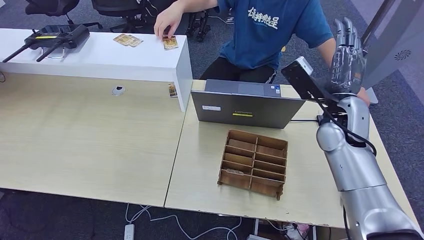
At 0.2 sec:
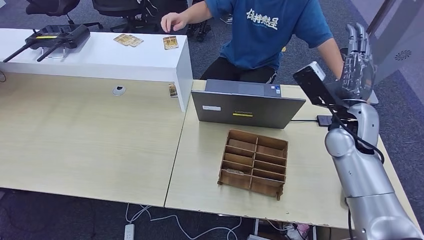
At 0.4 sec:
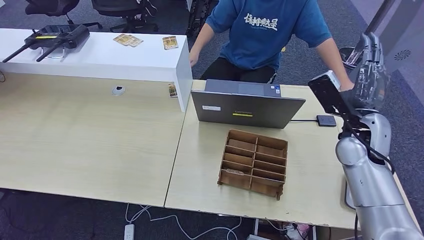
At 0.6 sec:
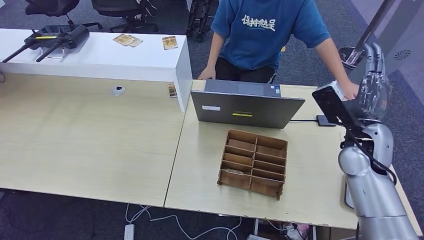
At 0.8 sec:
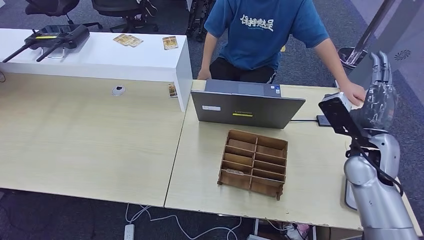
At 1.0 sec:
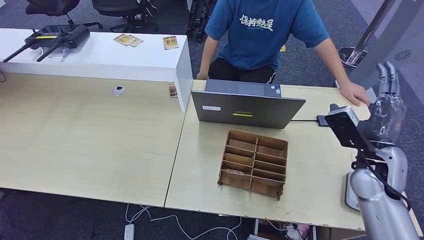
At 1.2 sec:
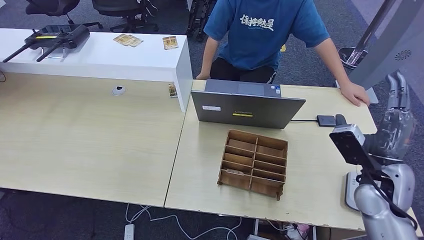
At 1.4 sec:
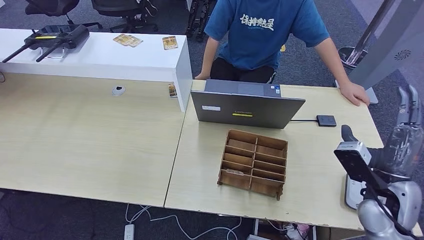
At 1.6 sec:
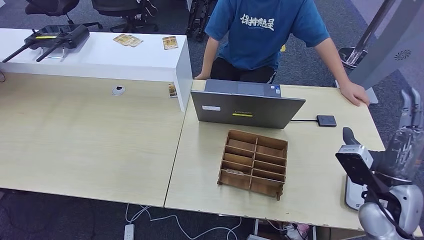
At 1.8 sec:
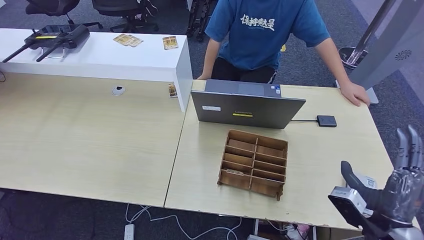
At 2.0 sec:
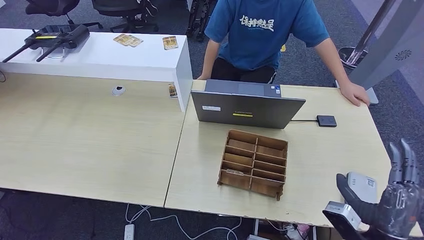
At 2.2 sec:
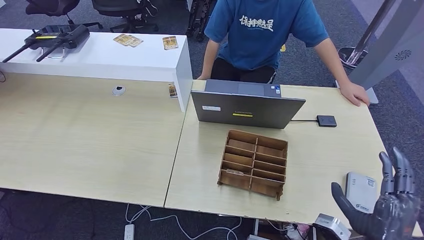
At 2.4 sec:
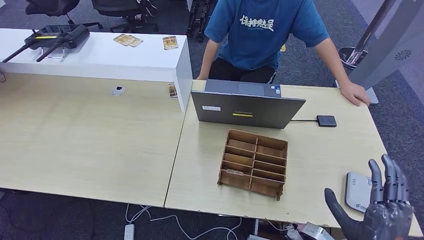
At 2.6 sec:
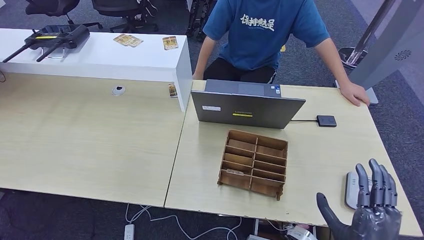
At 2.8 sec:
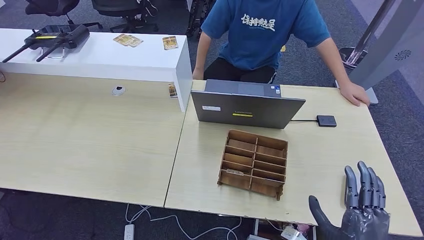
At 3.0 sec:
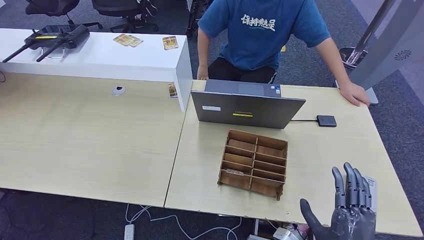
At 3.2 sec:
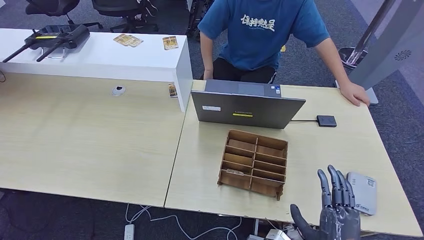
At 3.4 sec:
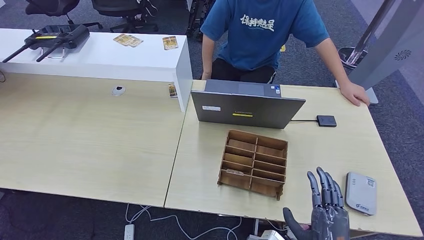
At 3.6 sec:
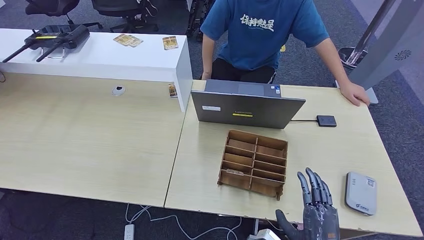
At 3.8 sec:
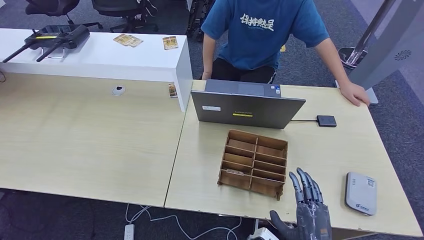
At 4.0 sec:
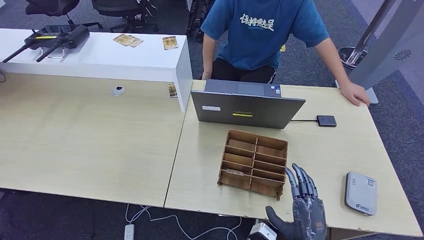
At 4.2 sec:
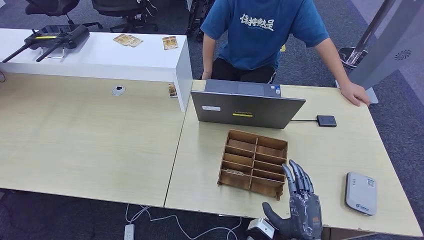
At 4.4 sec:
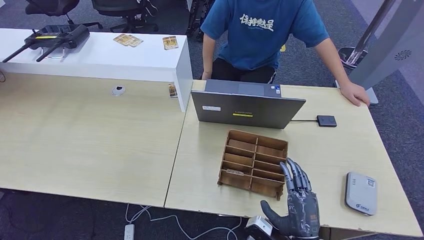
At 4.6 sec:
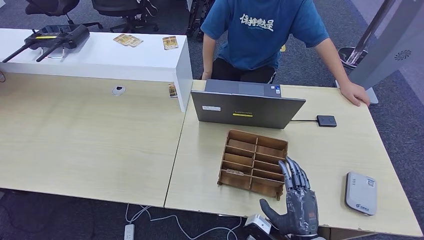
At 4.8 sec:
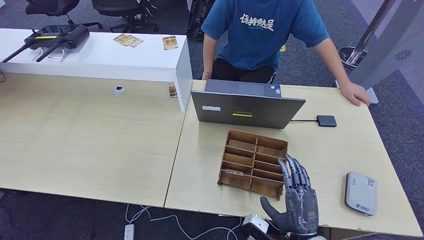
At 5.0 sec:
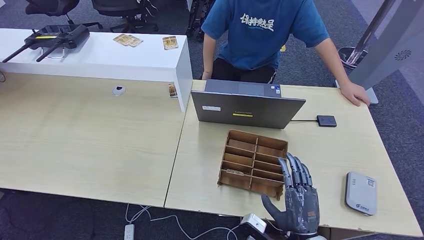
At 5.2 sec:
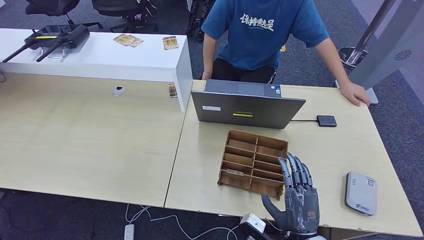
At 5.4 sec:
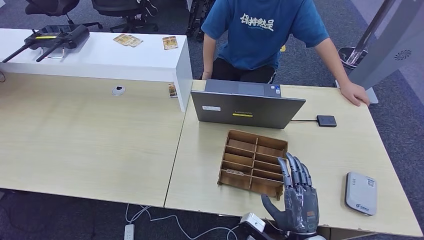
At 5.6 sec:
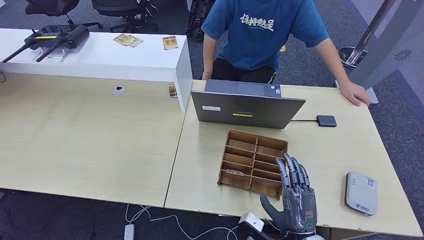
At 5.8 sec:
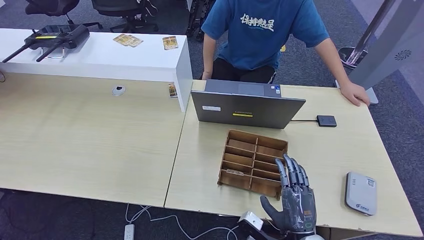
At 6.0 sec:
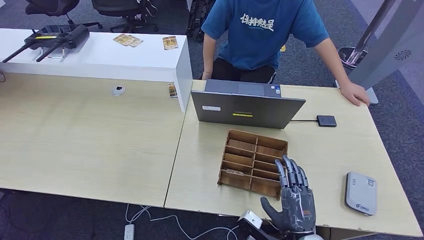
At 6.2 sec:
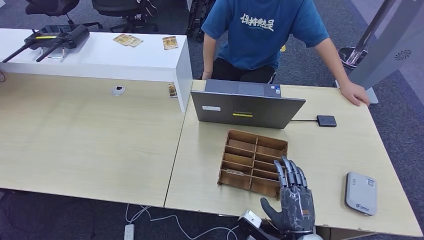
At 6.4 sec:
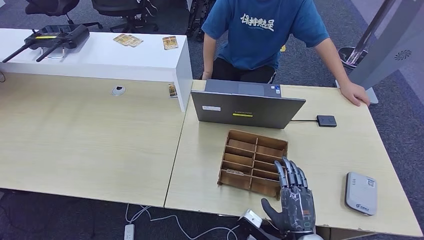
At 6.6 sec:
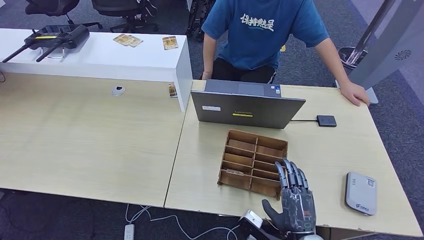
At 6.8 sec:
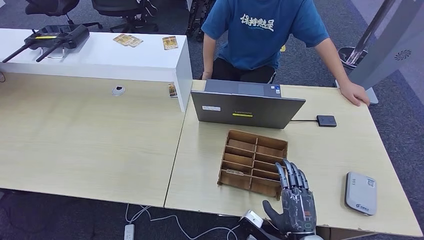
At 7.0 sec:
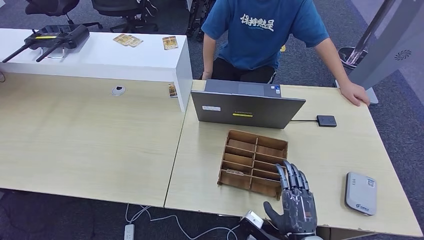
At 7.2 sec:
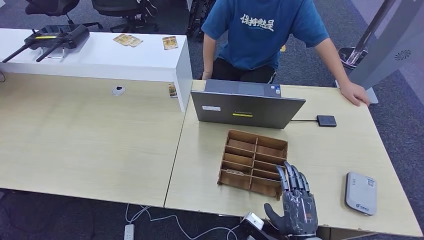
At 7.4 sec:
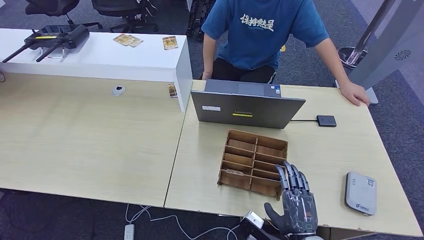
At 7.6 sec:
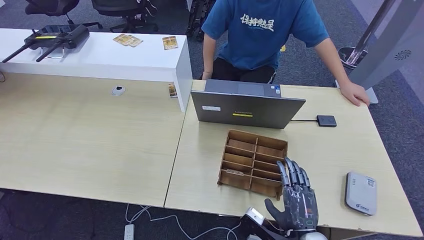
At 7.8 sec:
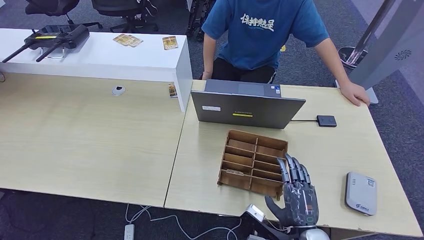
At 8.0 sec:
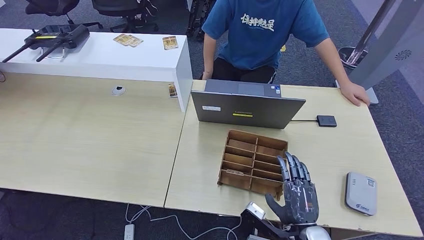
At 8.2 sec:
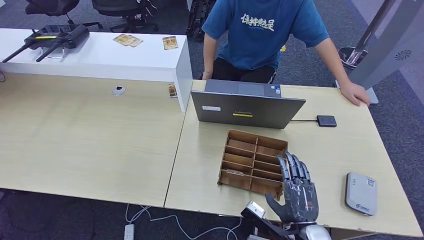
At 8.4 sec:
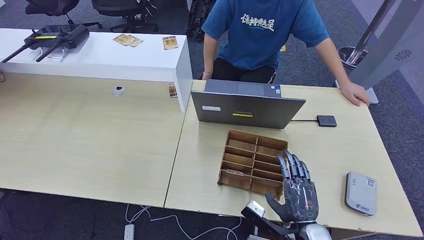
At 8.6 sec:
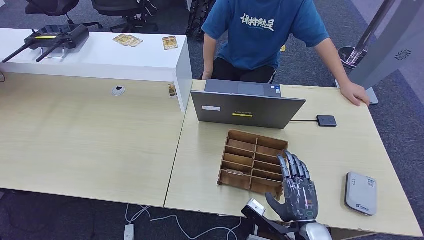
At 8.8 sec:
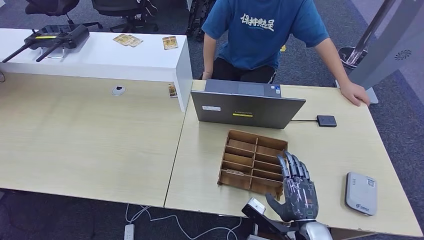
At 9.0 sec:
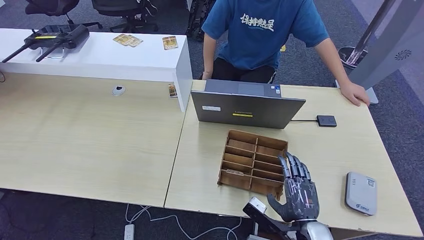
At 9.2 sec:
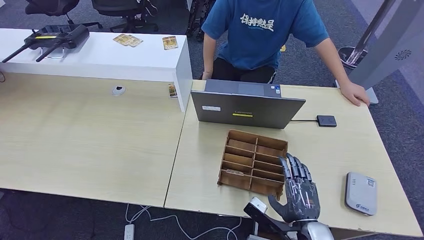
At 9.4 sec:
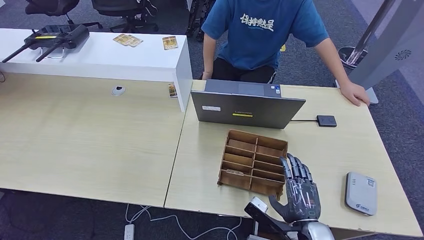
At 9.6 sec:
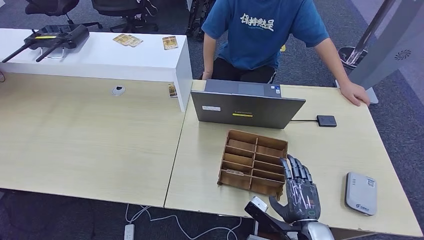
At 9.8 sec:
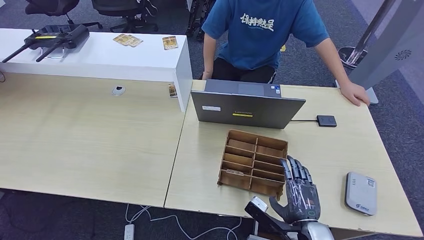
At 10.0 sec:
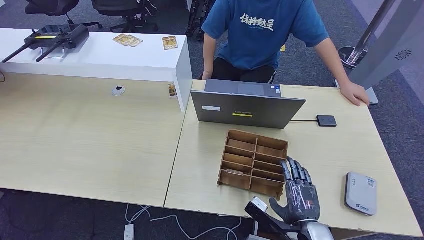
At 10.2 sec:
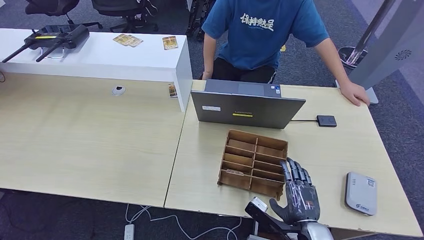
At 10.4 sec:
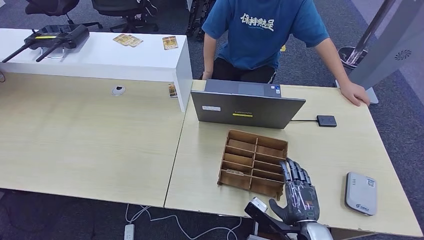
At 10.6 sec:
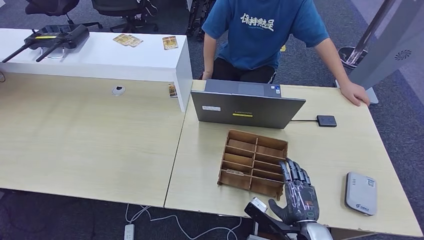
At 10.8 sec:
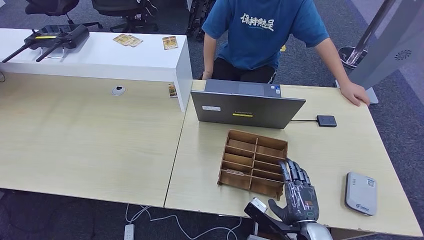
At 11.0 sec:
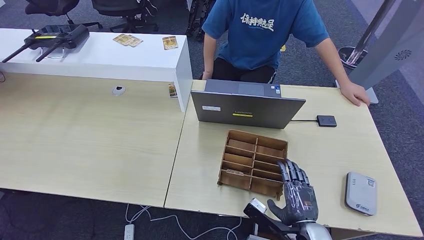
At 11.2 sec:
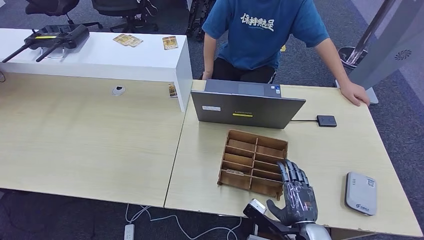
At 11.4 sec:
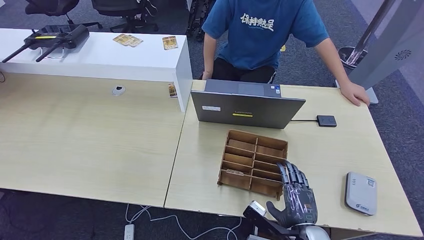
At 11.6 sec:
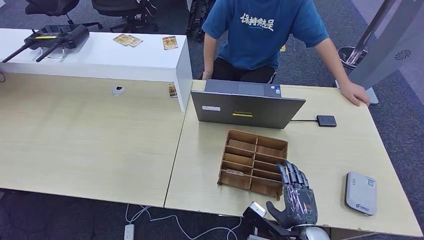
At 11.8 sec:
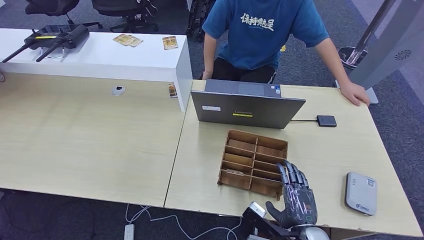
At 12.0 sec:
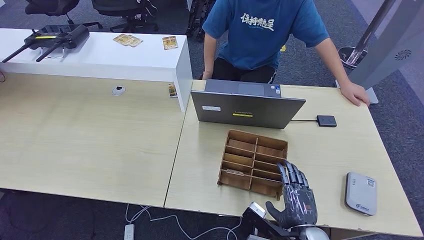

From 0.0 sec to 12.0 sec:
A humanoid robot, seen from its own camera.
From 0.0 sec to 1.6 sec: The right hand moves backward, to the right and downward, approximately 20 cm.
From 1.6 sec to 3.0 sec: The right hand heads backward, downward and to the left, covering about 20 cm.
From 3.0 sec to 4.4 sec: The right hand moves about 5 cm.
From 4.4 sec to 9.0 sec: The hands move only a little.
From 9.0 sec to 10.4 sec: The hands move only a little.
From 10.4 sec to 12.0 sec: Both hands stay put.

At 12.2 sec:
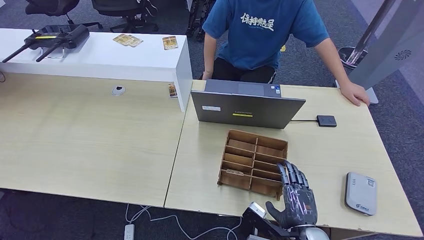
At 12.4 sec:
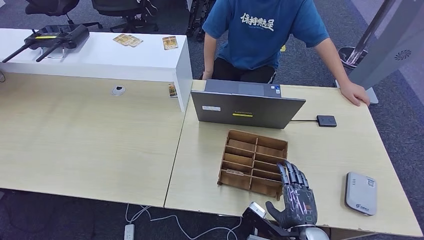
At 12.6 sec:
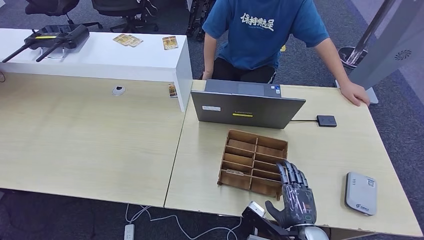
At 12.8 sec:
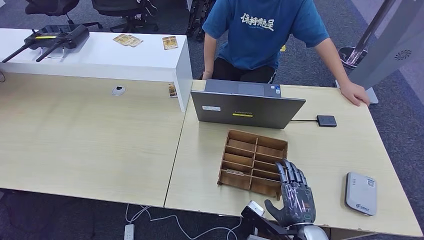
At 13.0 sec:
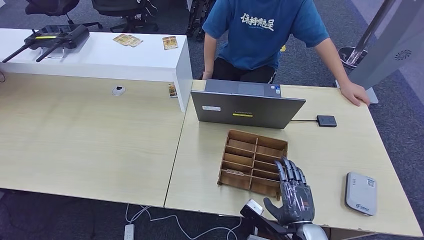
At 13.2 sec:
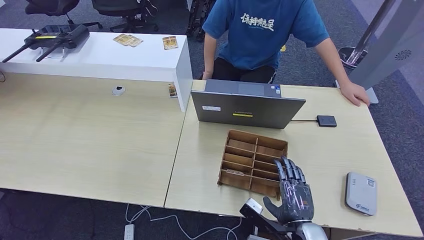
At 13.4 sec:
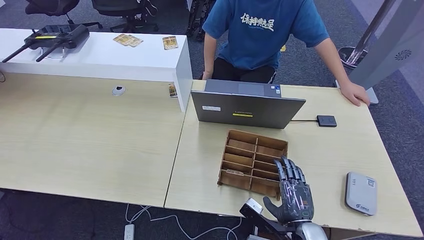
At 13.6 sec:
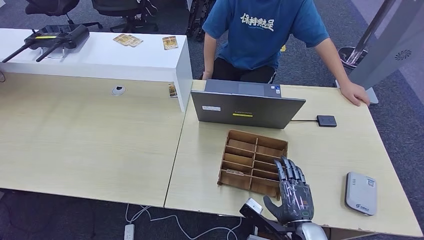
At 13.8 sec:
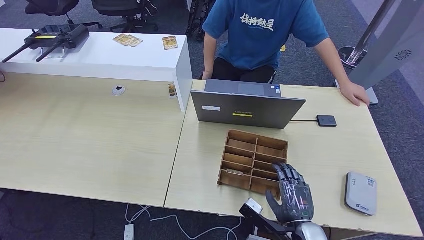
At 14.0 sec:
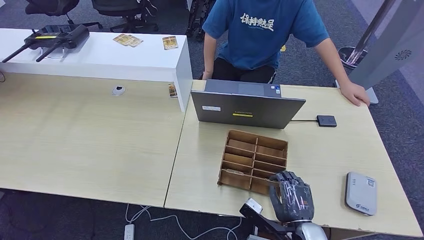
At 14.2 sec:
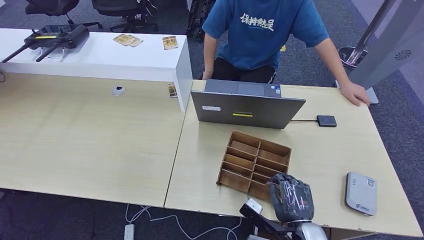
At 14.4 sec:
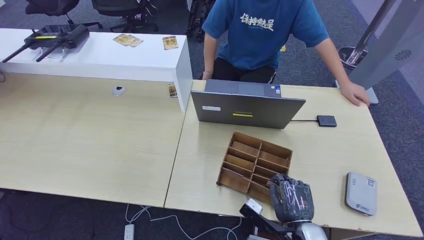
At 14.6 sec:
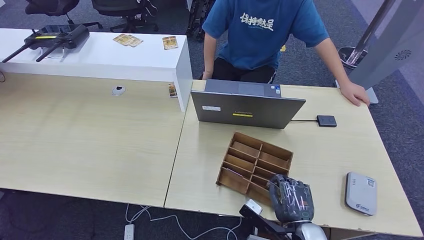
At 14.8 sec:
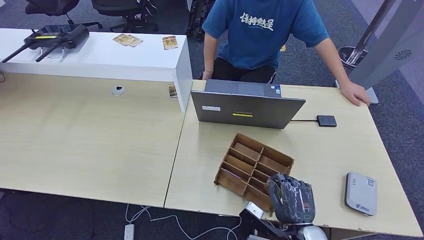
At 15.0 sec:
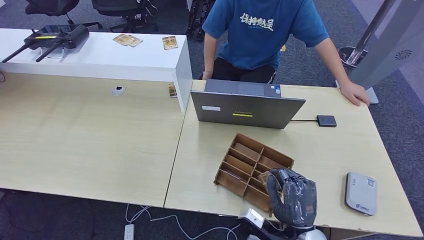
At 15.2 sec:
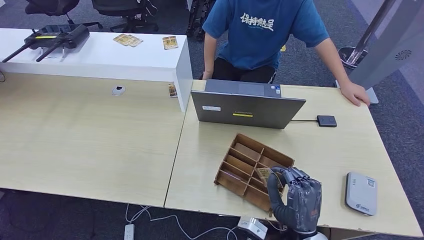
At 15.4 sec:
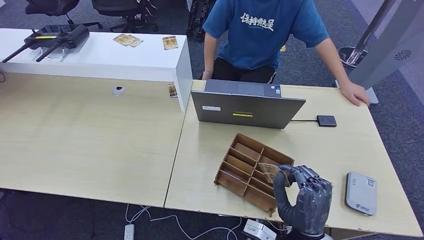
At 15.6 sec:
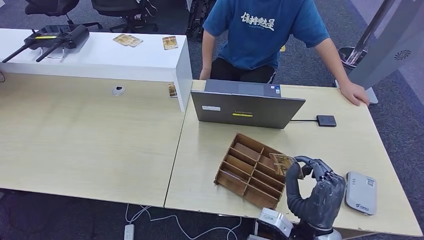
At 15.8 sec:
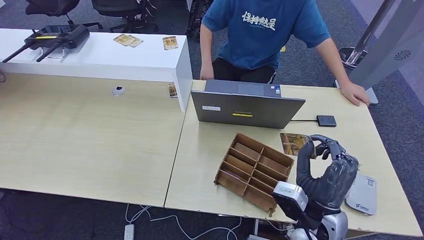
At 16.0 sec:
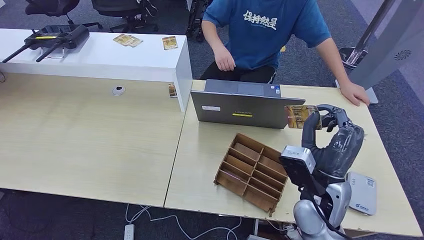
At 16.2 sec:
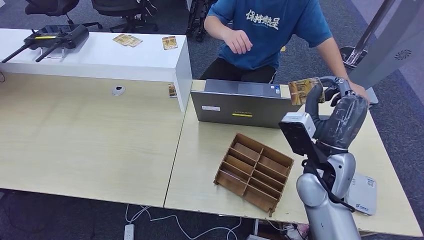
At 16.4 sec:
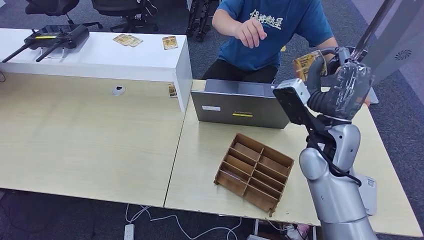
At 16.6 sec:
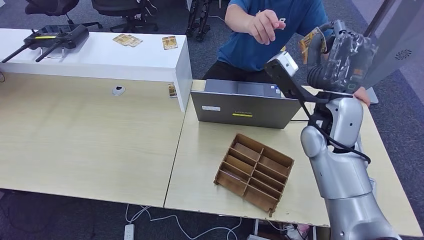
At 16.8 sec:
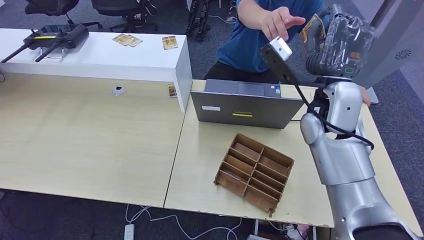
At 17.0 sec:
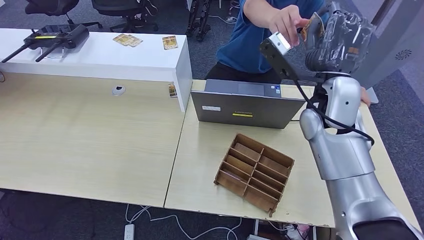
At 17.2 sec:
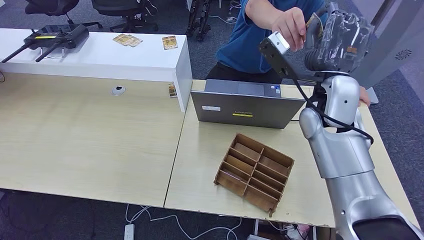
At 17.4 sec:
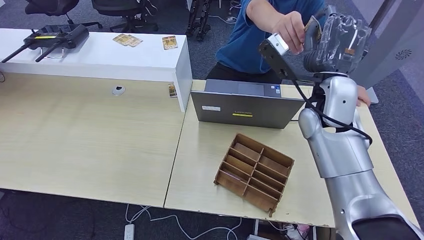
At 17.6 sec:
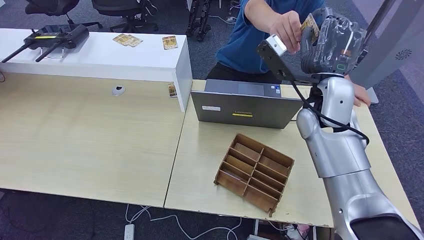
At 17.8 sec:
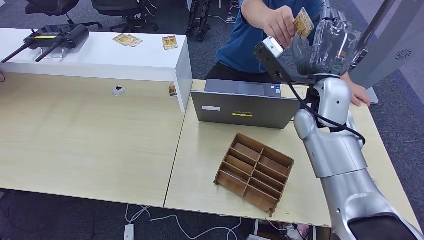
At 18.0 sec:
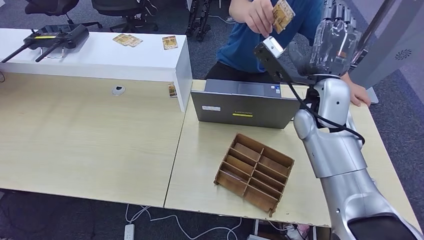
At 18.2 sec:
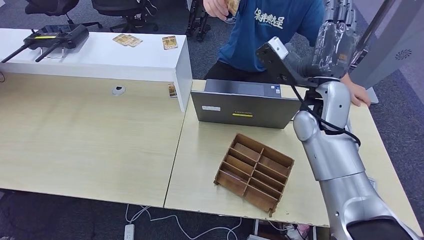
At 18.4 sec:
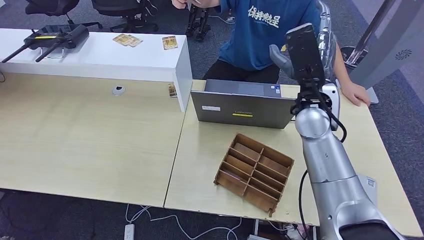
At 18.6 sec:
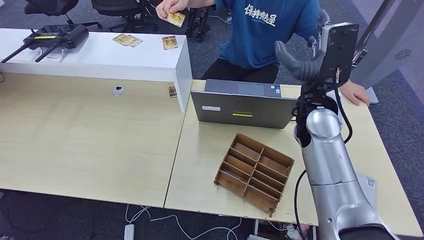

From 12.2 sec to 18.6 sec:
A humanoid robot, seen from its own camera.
Step, from 12.2 sec to 15.6 sec: Pick up the room key from the key card box.
Step, from 15.8 sec to 18.6 sec: Hand the room key to the person.
From 12.2 sec to 13.8 sec: The two hands keep their place.
From 13.8 sec to 15.4 sec: The right hand moves upward, about 5 cm.
From 15.4 sec to 17.0 sec: The right hand heads forward and upward, covering roughly 30 cm.
